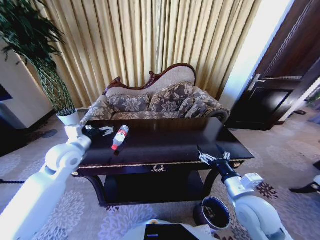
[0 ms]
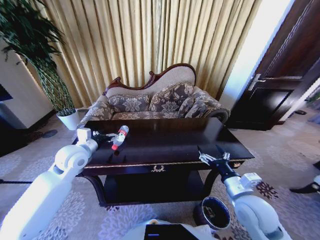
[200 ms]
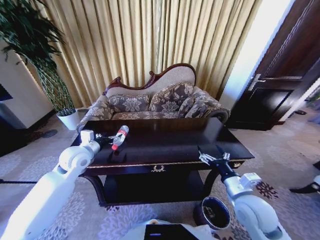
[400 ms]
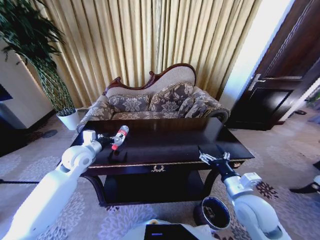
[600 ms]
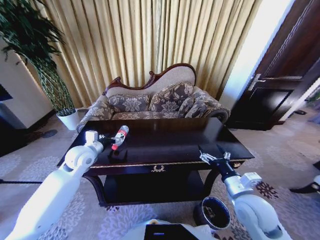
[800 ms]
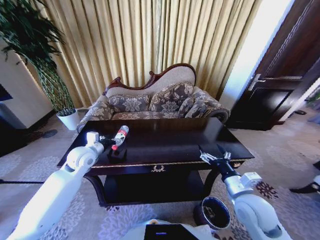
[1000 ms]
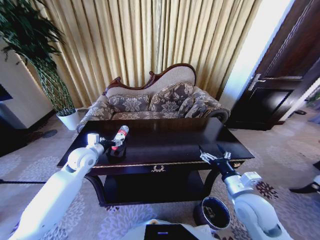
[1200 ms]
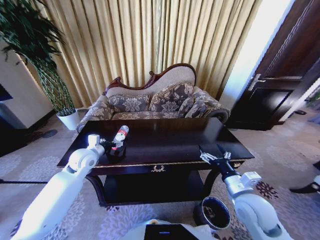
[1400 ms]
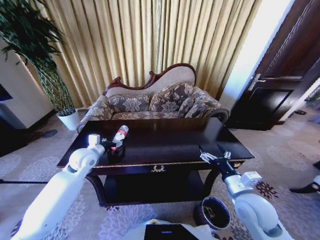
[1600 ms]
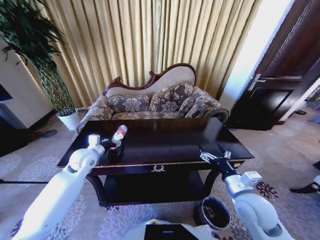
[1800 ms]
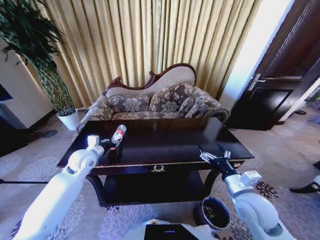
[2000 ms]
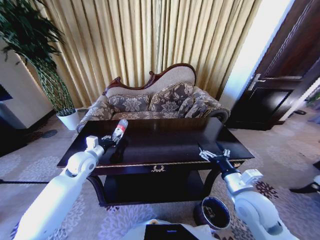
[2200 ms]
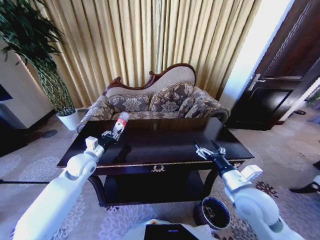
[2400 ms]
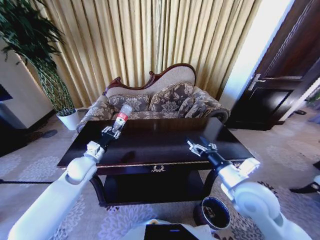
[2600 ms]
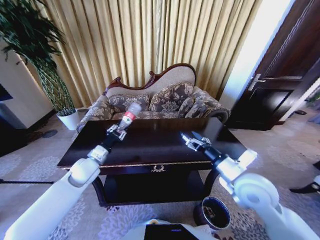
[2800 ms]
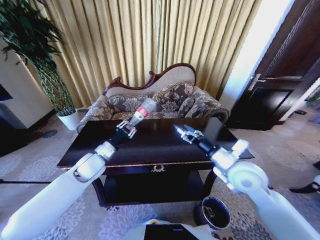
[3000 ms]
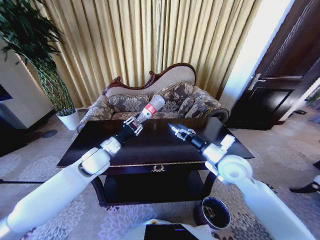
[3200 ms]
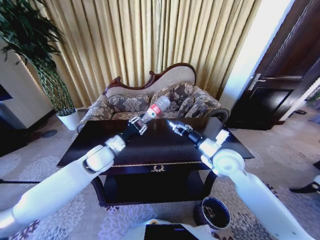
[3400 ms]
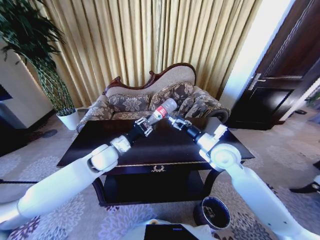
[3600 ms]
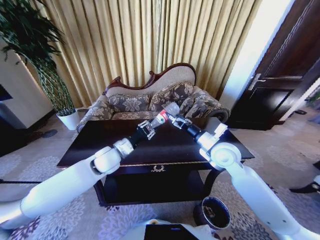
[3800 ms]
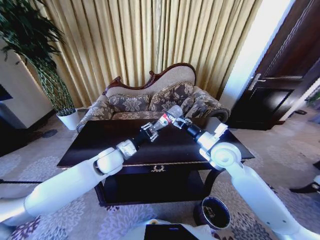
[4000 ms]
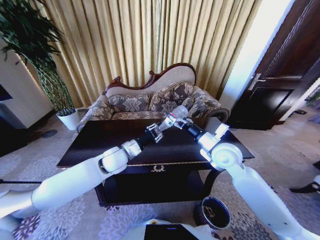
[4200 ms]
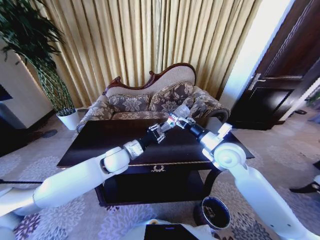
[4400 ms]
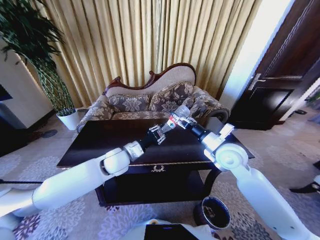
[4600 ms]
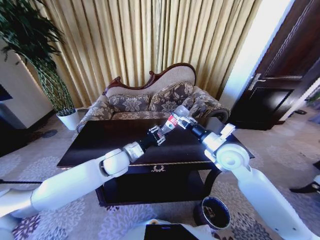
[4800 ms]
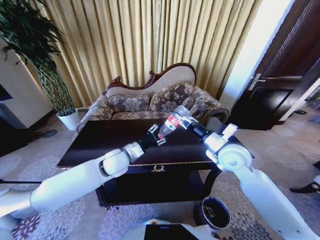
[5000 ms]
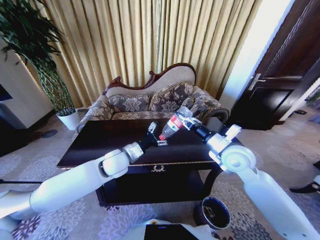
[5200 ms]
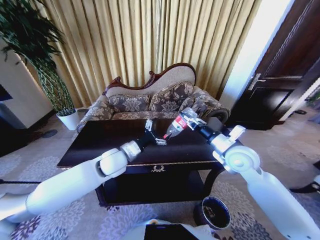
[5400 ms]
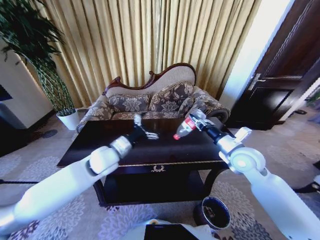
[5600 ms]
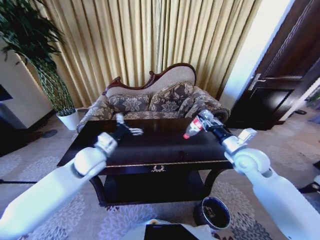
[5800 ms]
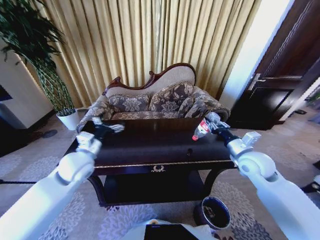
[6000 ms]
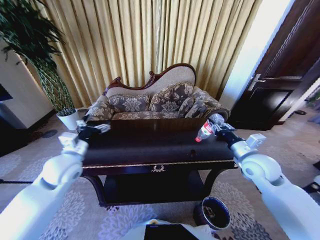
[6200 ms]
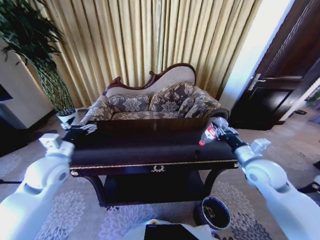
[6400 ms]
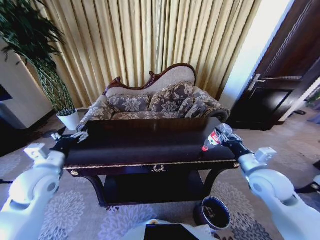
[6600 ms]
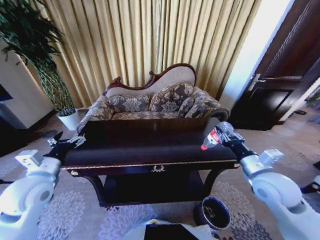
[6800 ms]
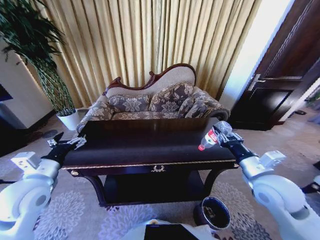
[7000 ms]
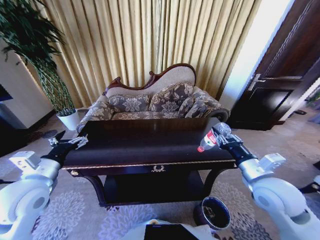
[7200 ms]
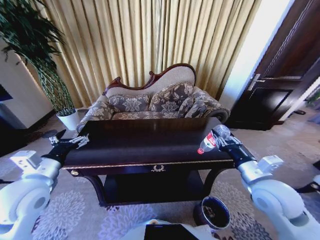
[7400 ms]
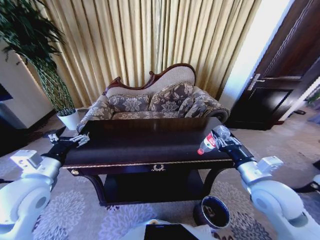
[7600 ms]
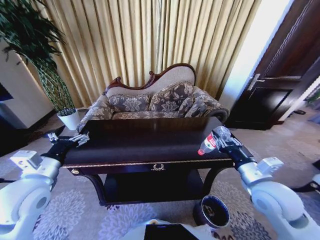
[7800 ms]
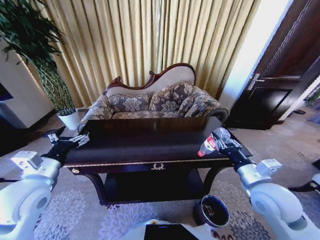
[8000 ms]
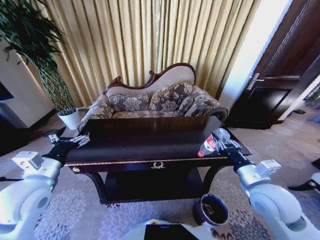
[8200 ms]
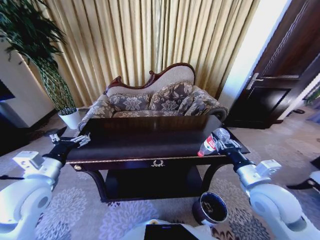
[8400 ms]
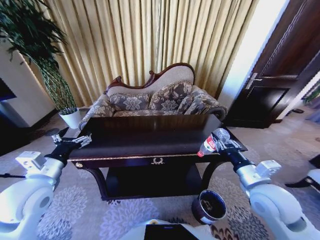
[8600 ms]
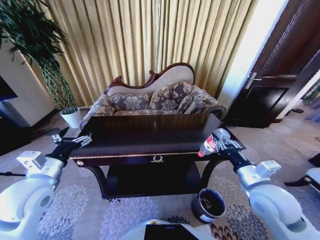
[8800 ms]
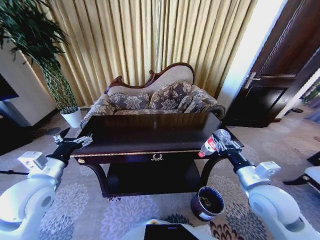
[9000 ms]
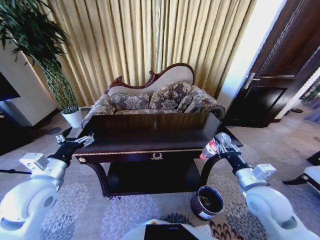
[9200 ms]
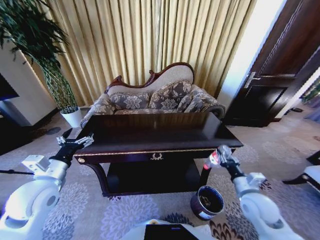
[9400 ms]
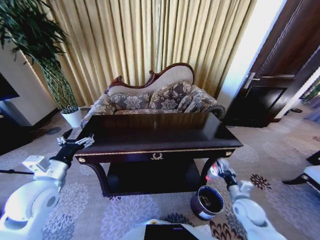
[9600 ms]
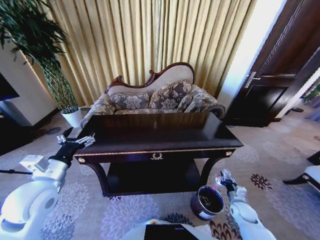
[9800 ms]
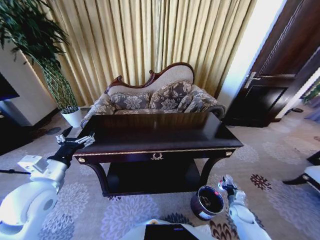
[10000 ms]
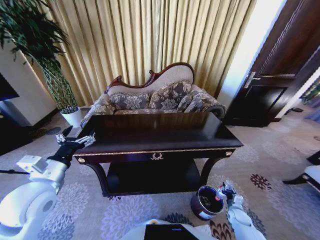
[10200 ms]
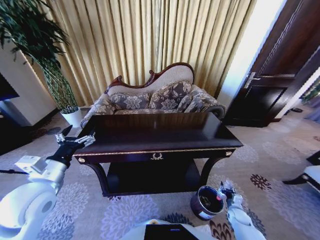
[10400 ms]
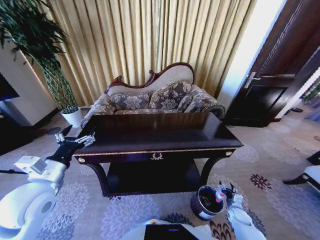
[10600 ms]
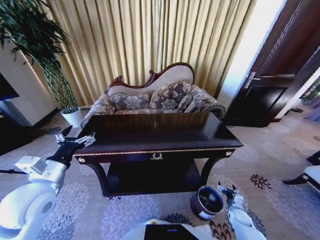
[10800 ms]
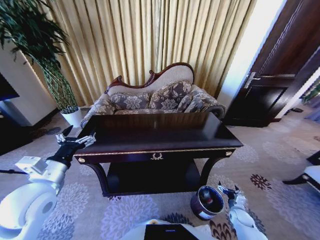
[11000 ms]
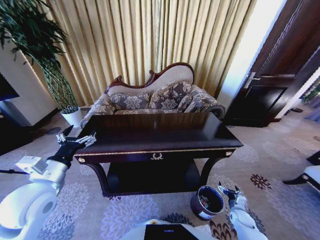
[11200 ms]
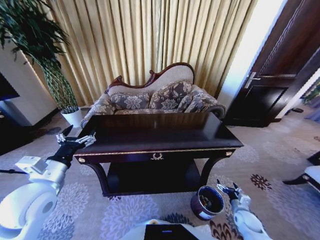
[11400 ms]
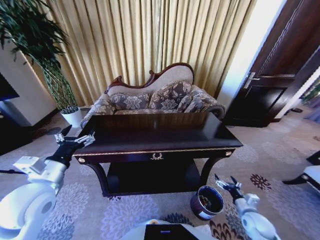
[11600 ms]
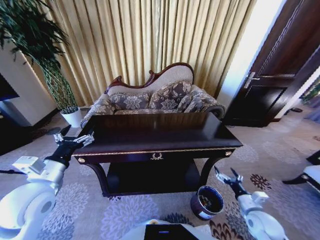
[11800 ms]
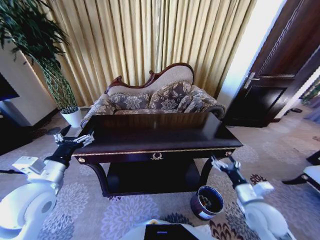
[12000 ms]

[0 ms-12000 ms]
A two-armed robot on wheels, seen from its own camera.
Task of the whole recording: Move to the front of the table and place the trash on the table into the trash bin.
0 ms to 1600 ms: The left gripper is displaced downward by about 5 cm.
1600 ms to 3000 ms: The left gripper ends up roughly 5 cm from where it was, and closes; the right gripper goes some 10 cm upward and forward.
3000 ms to 4400 ms: The right gripper goes some 10 cm forward, while the left gripper moves to the right, approximately 10 cm.
4400 ms to 6000 ms: The left gripper moves to the left, some 10 cm, and opens up; the right gripper is displaced to the right by roughly 10 cm, and closes.
6000 ms to 7600 ms: The left gripper heads backward and to the left, covering approximately 15 cm, while the right gripper goes roughly 10 cm backward.
9000 ms to 10400 ms: The right gripper moves downward, about 40 cm.
10400 ms to 12000 ms: The right gripper heads upward, covering some 30 cm, and opens its fingers.

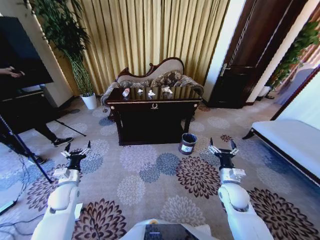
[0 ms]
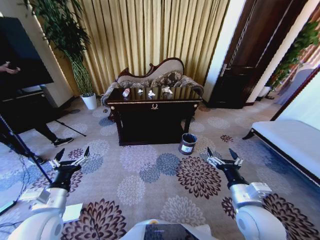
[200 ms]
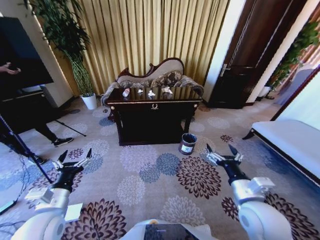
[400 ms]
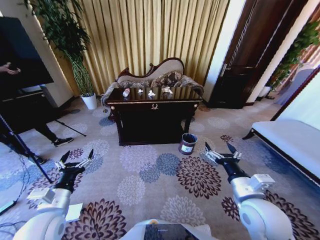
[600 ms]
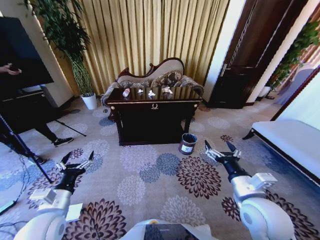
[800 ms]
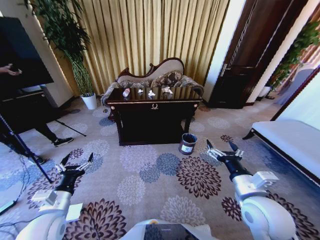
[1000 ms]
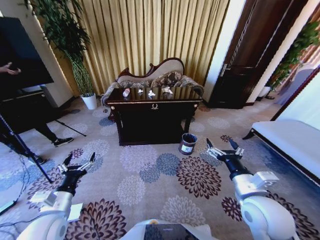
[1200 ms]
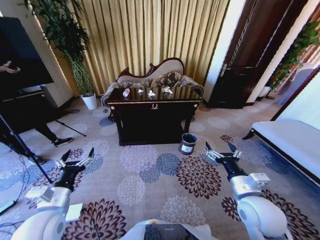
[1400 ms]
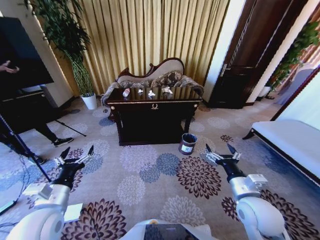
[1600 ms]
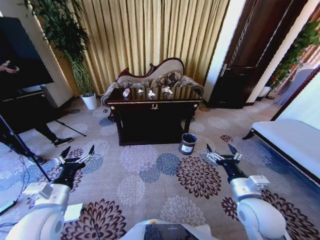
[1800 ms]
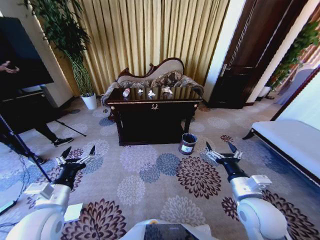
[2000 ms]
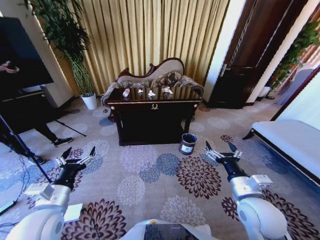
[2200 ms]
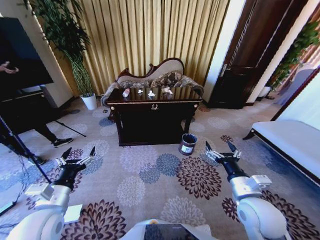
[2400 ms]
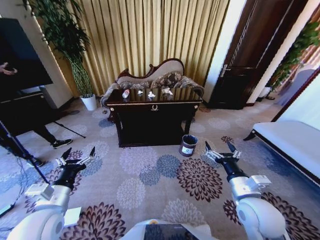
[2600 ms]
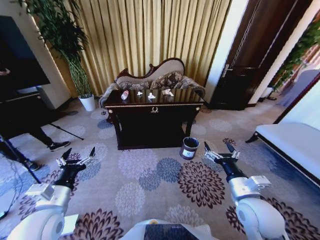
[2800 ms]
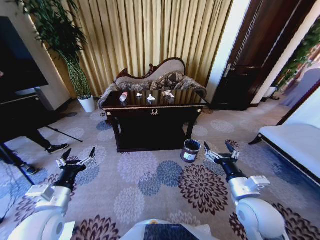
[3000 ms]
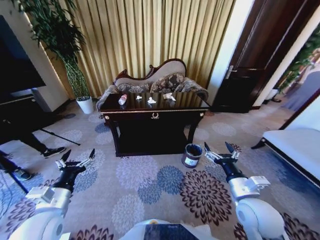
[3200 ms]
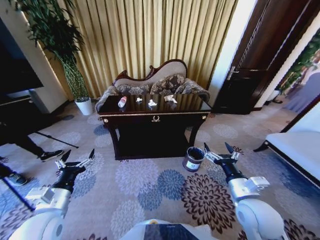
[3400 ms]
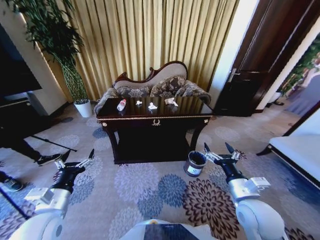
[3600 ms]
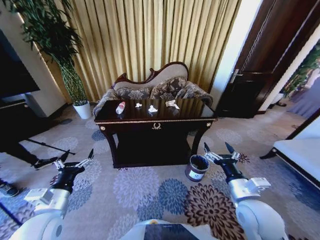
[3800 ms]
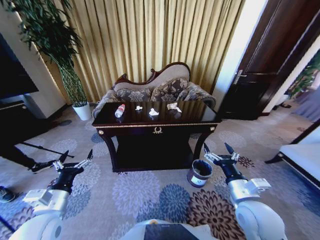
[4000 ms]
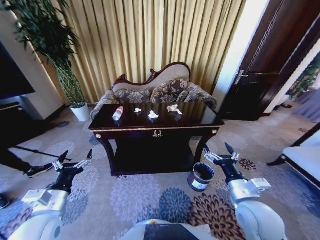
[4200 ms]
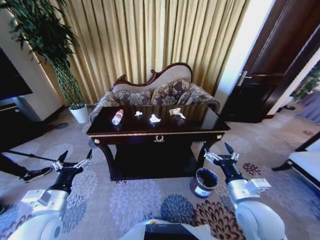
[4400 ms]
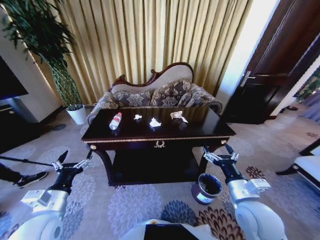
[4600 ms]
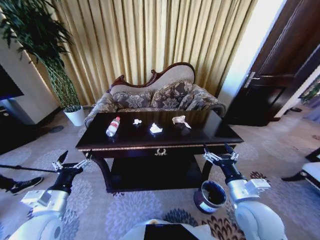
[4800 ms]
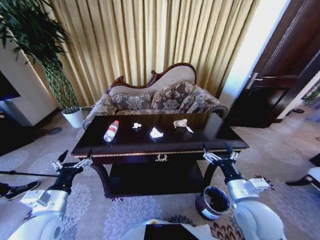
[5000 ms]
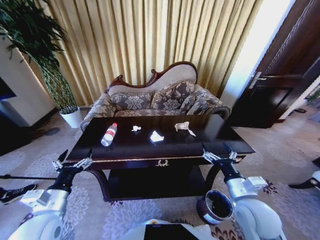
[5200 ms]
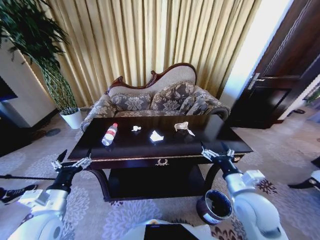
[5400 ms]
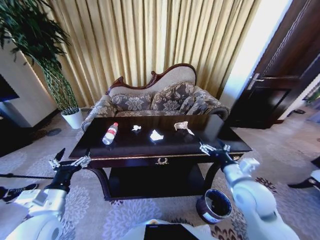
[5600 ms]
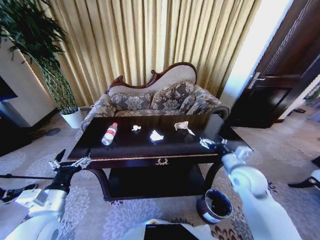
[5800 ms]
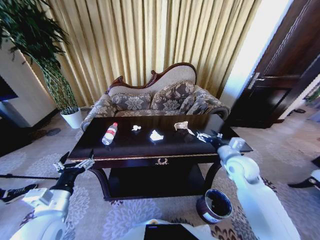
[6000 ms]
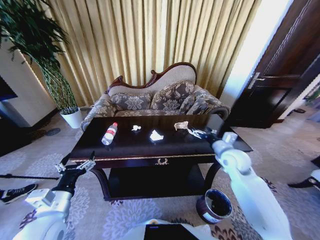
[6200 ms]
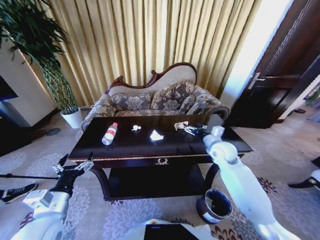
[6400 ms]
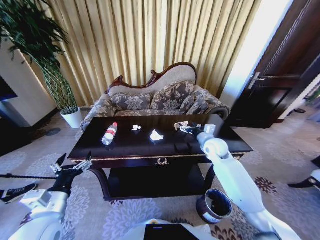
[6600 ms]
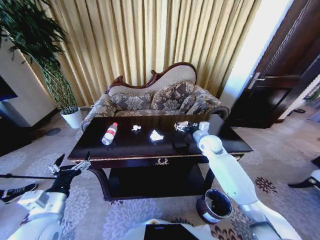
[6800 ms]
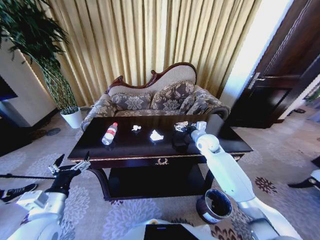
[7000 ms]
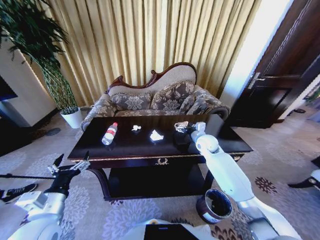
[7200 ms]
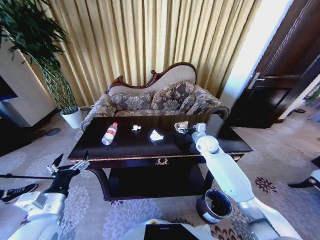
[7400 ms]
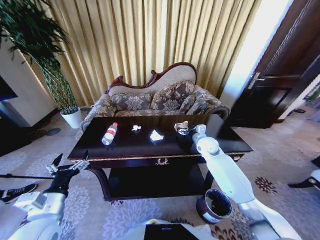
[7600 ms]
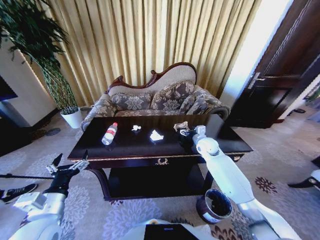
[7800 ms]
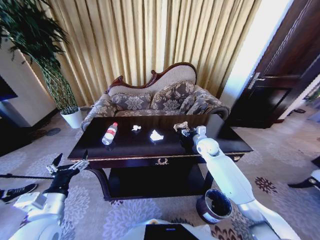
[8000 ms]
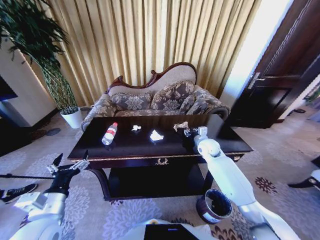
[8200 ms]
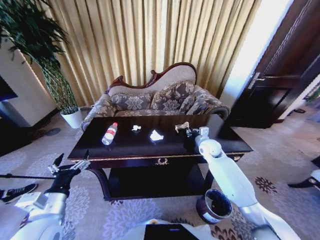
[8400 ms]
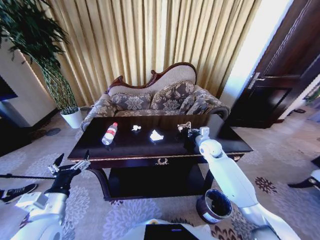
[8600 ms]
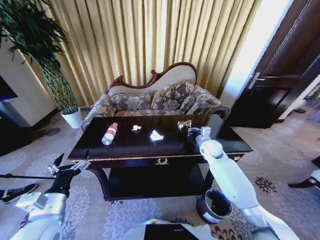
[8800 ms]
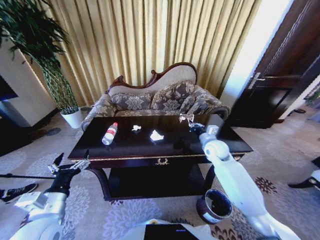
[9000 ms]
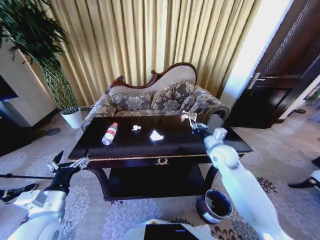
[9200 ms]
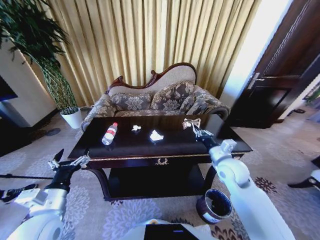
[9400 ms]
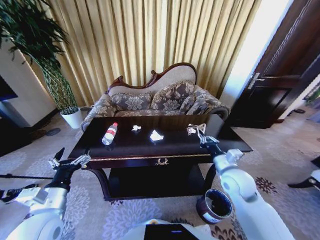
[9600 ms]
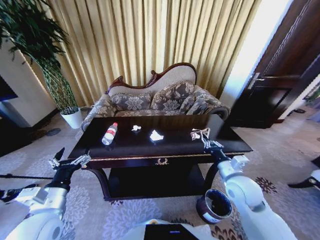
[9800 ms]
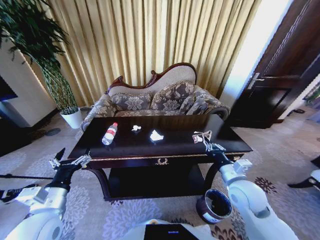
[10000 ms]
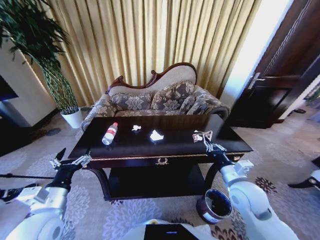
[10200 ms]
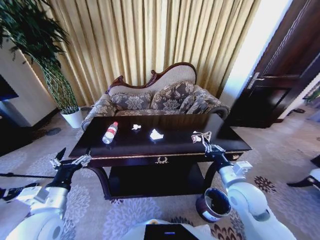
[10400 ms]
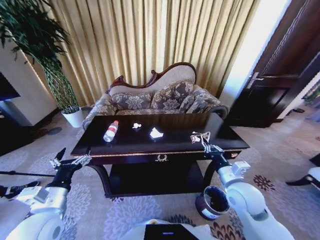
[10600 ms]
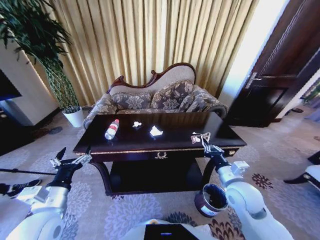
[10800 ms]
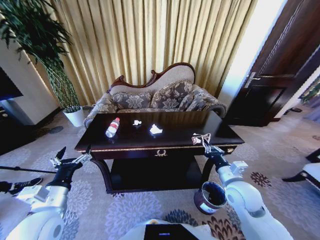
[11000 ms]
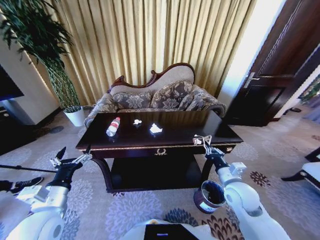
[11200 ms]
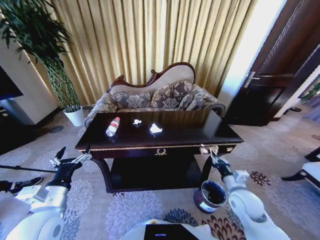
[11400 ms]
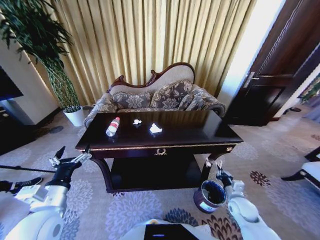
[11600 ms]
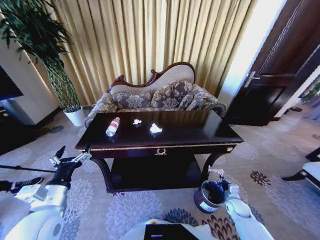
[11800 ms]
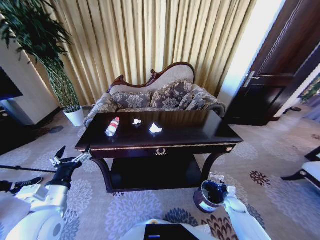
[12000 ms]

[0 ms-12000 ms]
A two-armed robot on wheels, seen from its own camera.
Task of the whole recording: Move to the front of the table and place the trash on the table into the trash bin.
4400 ms to 6000 ms: The right gripper shifts approximately 15 cm forward.
6000 ms to 7600 ms: The right gripper shifts approximately 15 cm forward and to the left.
7600 ms to 9000 ms: The right gripper closes its fingers.
9000 ms to 10400 ms: The right gripper travels backward by some 20 cm.
10400 ms to 12000 ms: The right gripper travels downward and to the right by about 35 cm.
